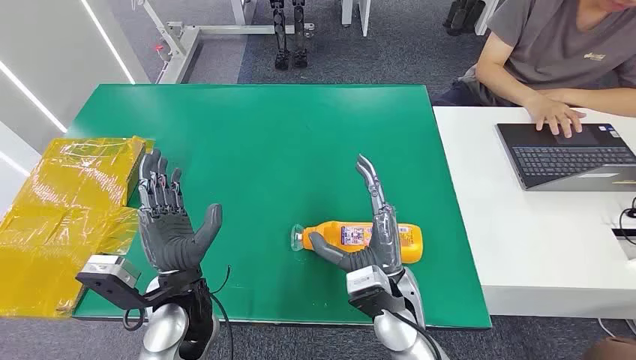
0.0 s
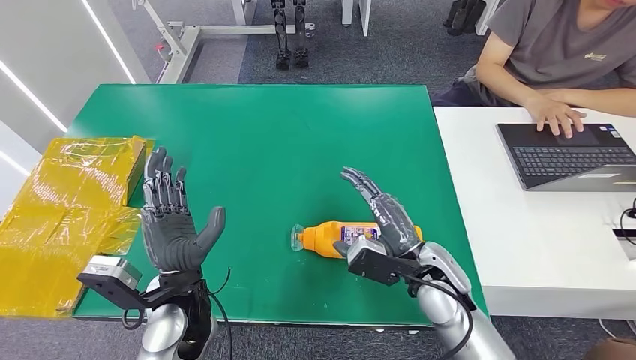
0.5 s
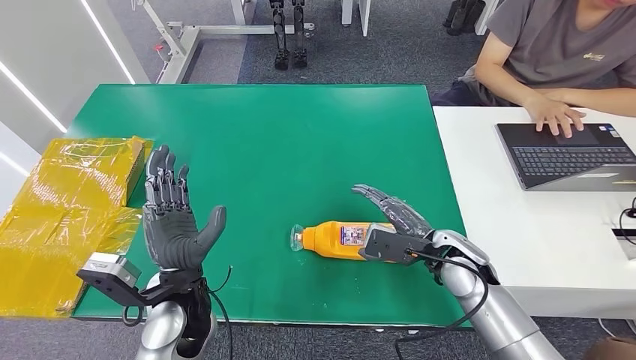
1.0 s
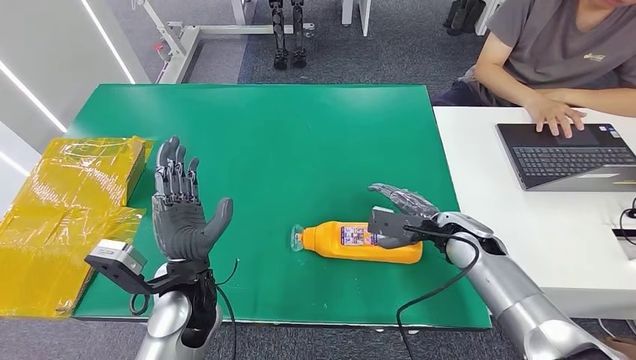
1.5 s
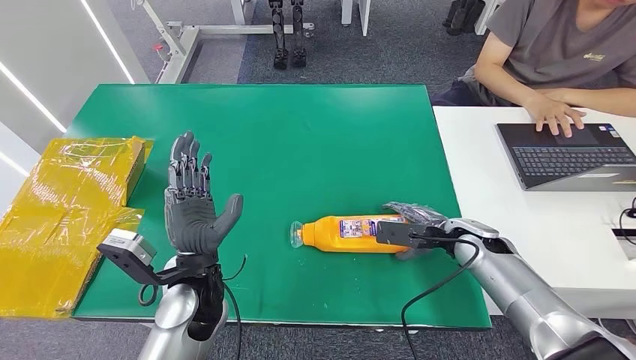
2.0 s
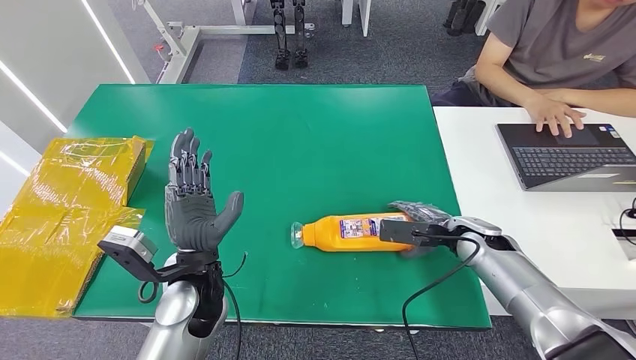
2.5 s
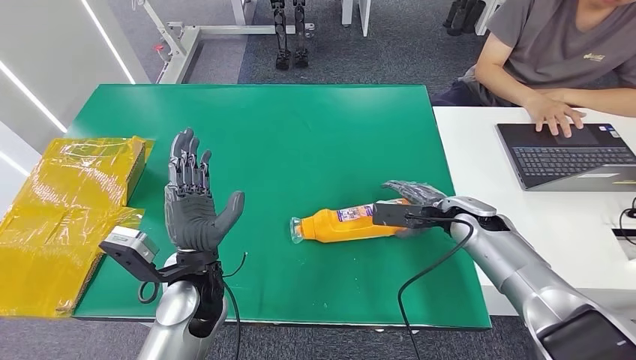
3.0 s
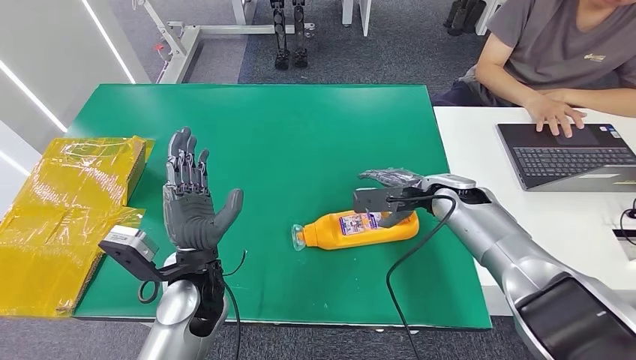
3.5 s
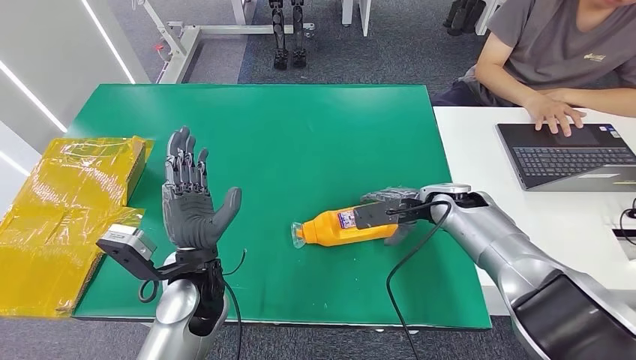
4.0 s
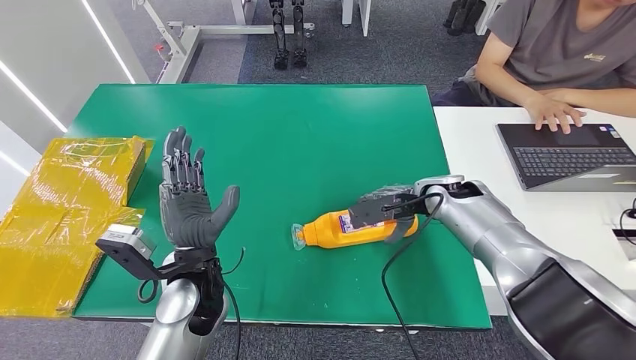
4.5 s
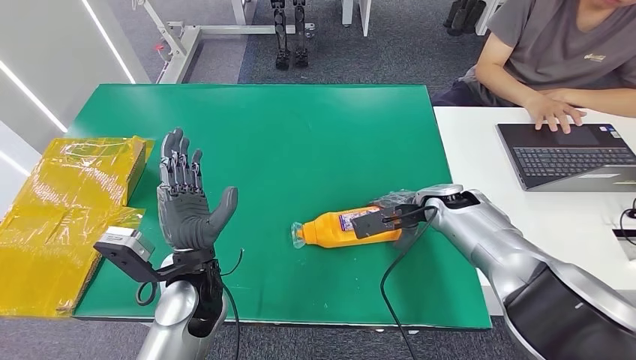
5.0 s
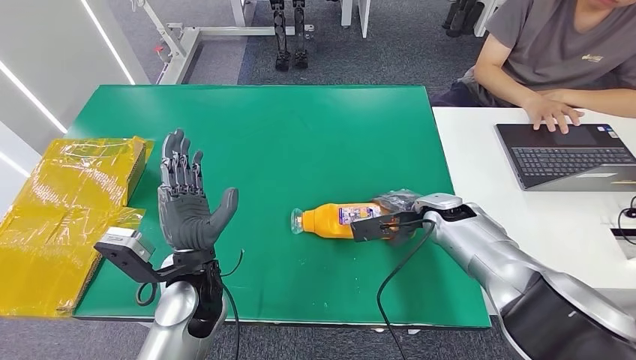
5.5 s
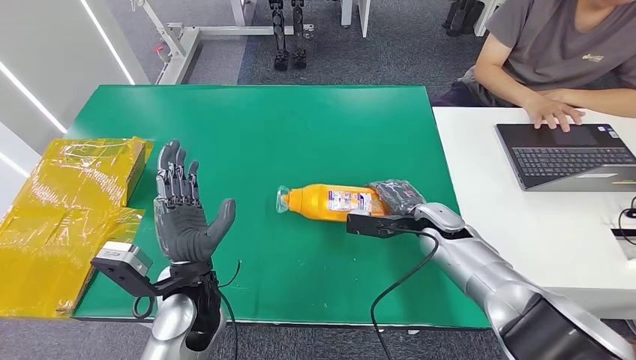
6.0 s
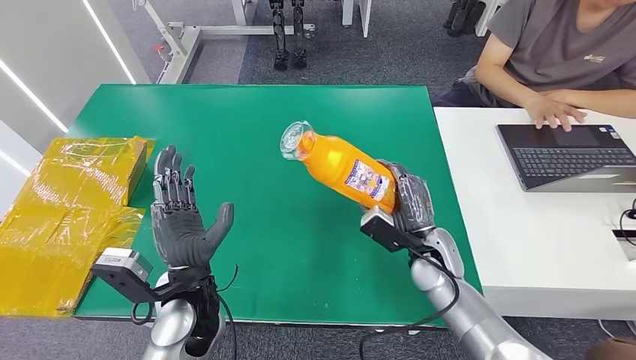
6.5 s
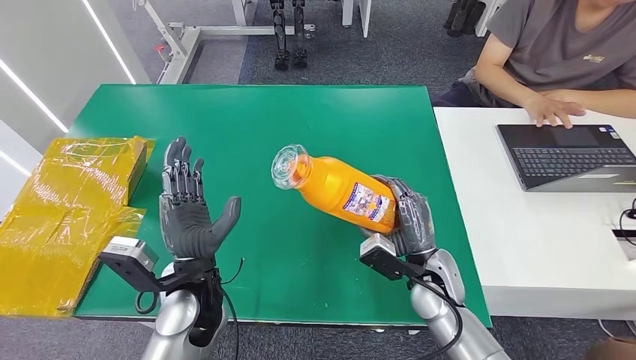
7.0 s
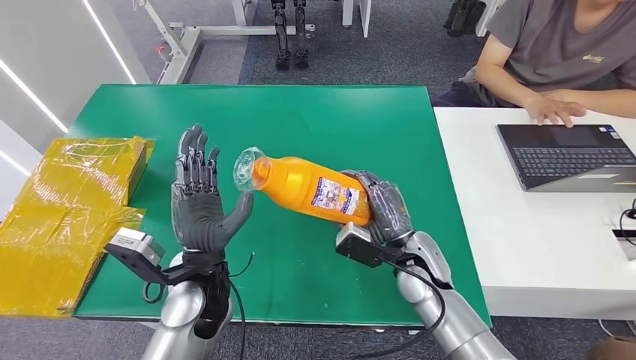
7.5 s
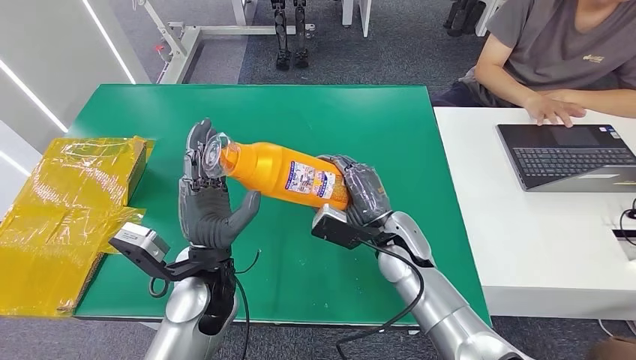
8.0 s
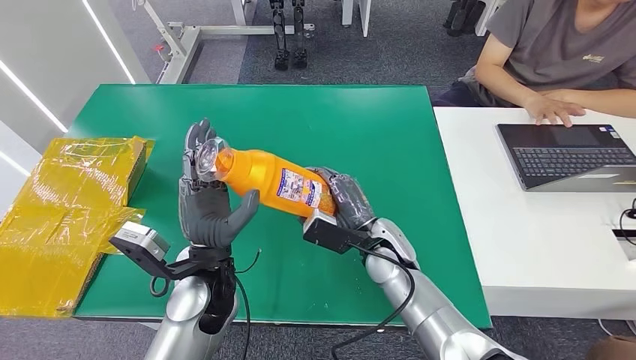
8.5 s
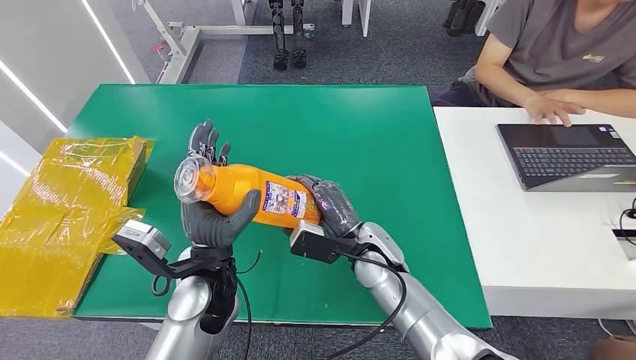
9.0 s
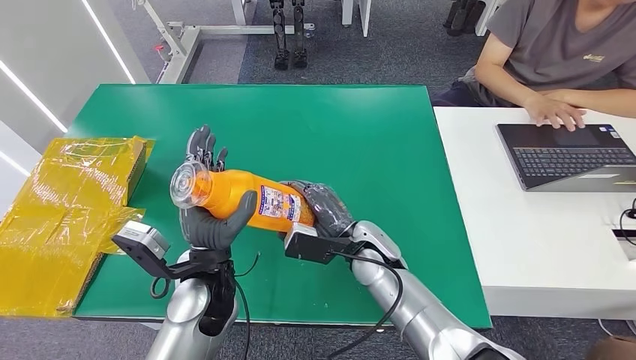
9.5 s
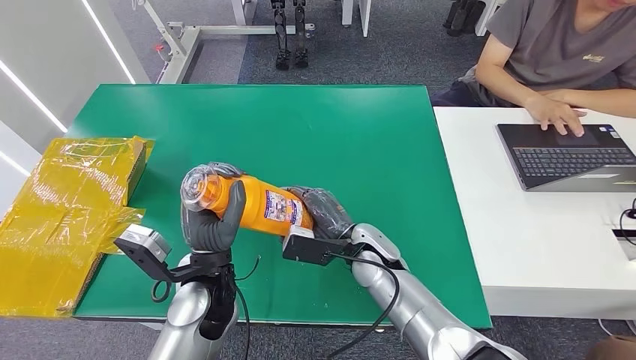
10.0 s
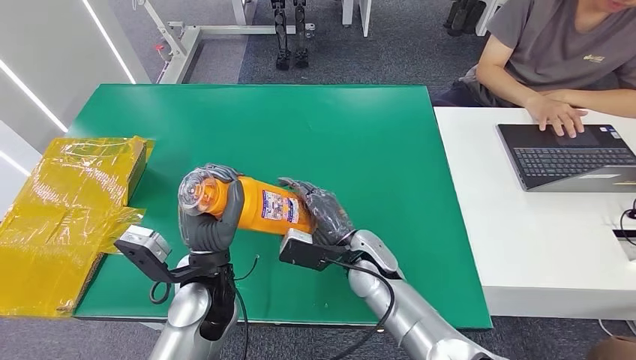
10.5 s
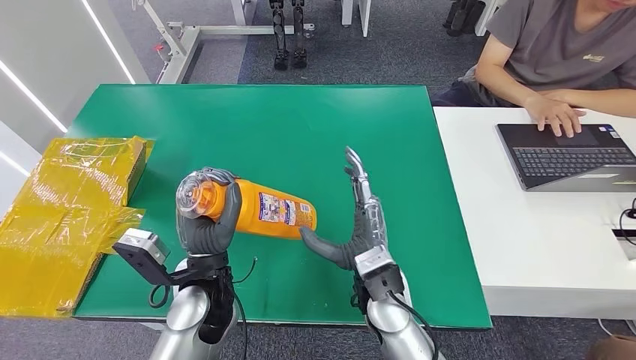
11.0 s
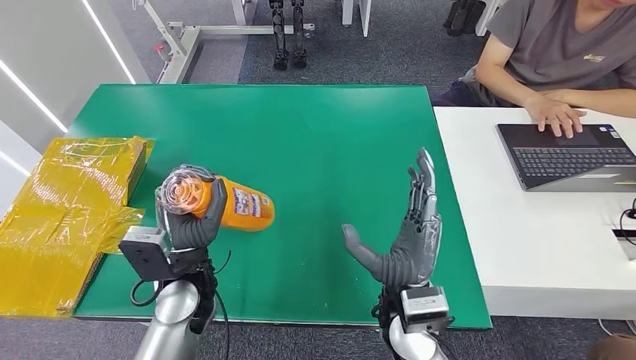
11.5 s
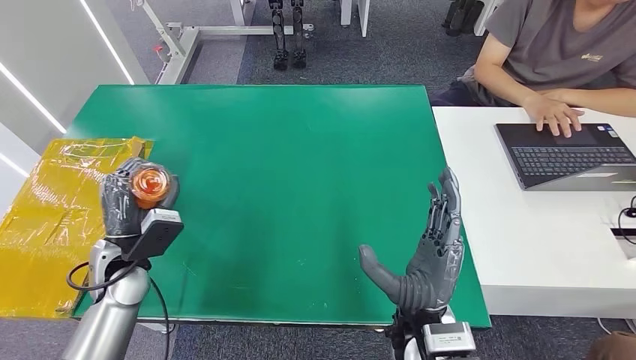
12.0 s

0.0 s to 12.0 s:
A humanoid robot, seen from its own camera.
2.0 to 4.0 s: The right hand heads forward and upward, covering roughly 10 cm.
4.0 to 6.0 s: The right hand is displaced downward by some 5 cm.
8.0 to 10.0 s: The right hand ends up approximately 5 cm from where it was.
10.0 to 12.0 s: The left hand moves to the left, some 15 cm, while the right hand moves backward, approximately 15 cm.

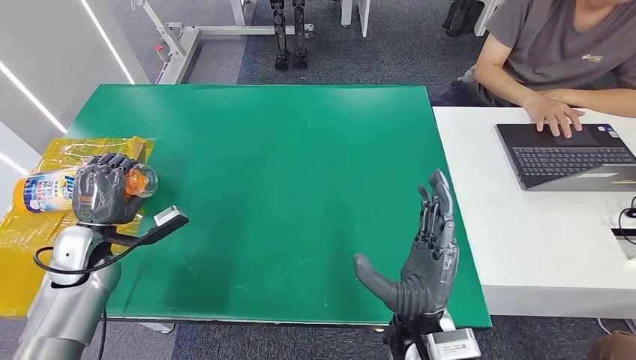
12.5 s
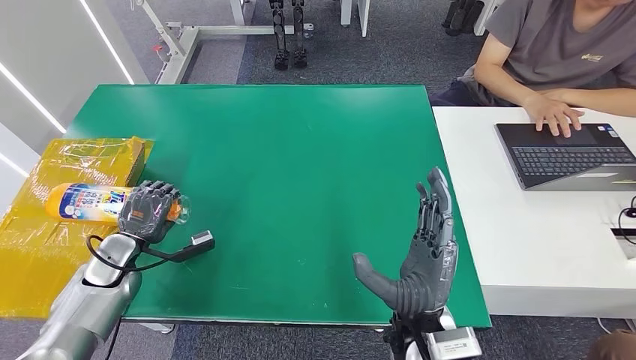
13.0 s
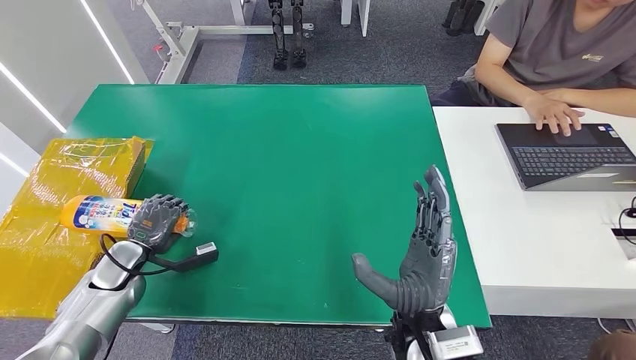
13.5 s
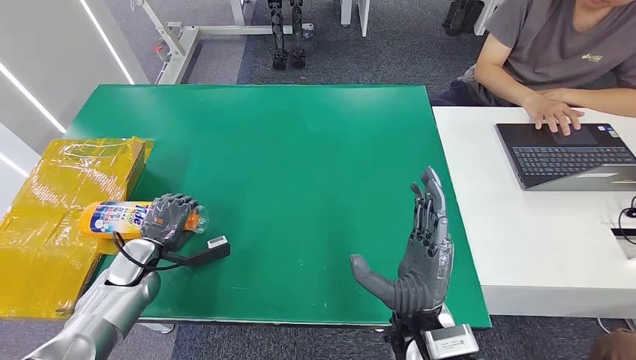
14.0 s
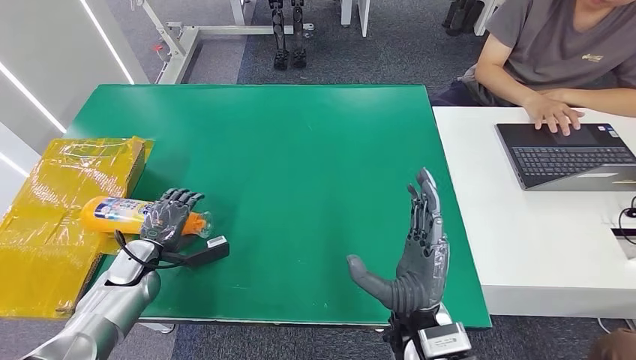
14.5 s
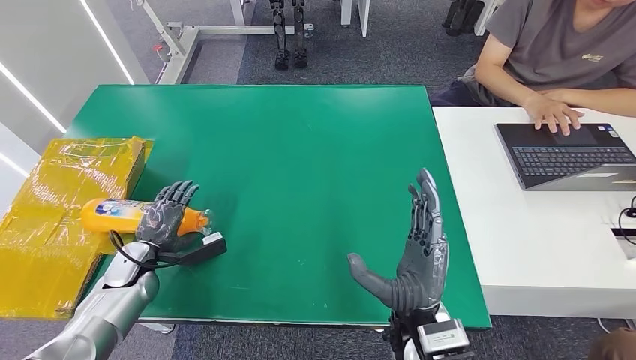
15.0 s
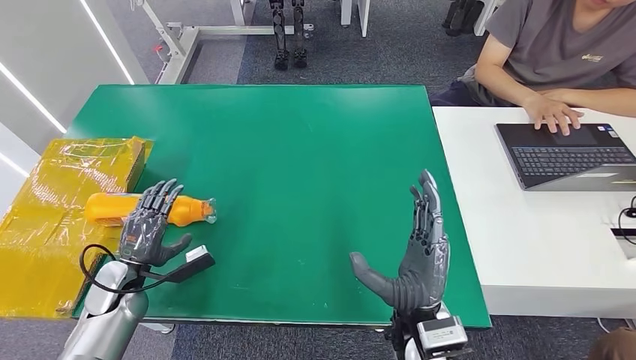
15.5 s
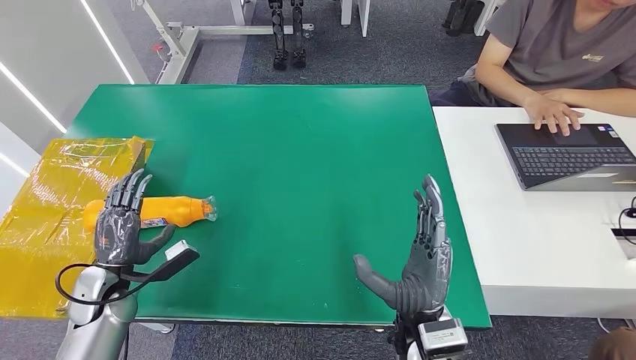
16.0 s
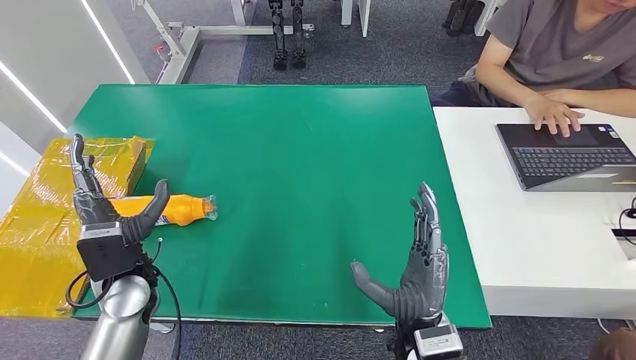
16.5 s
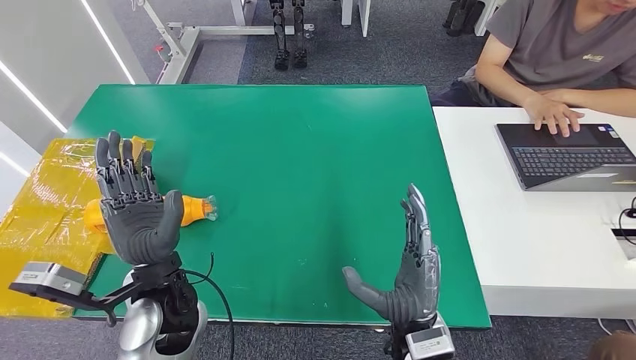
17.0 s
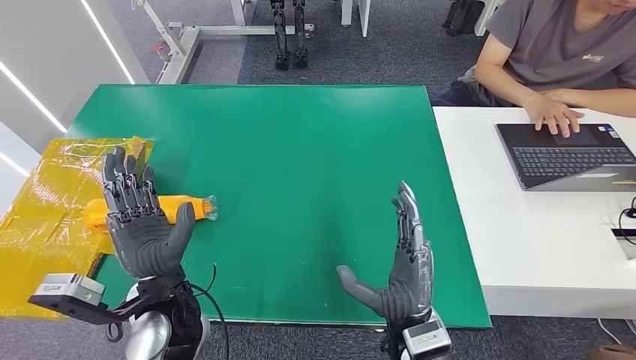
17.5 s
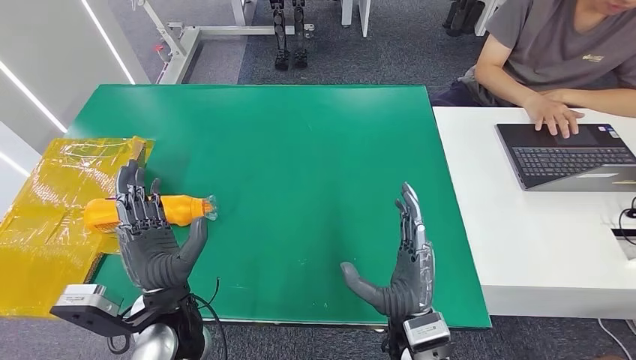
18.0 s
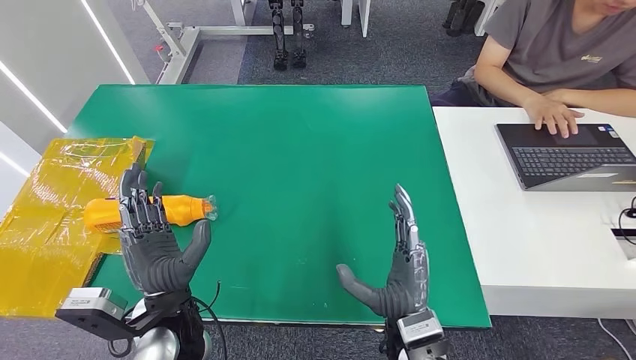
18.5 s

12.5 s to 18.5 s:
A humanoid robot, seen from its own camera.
Step, 12.5 to 18.5 s: Turn the bottle to the front side.
12.5 to 14.5 s: The left hand is displaced downward by about 10 cm.
14.5 to 16.5 s: The left hand moves upward, to the right and backward, about 15 cm.
16.5 to 18.5 s: The left hand goes roughly 15 cm to the right and backward.

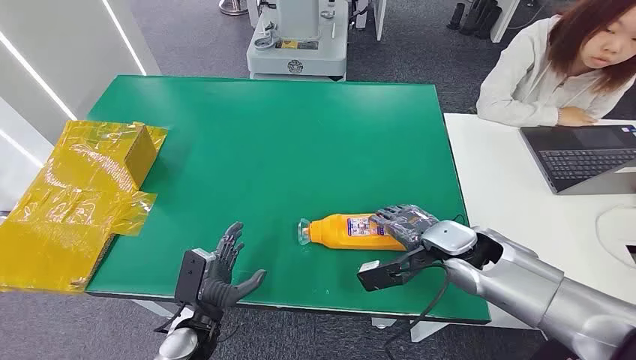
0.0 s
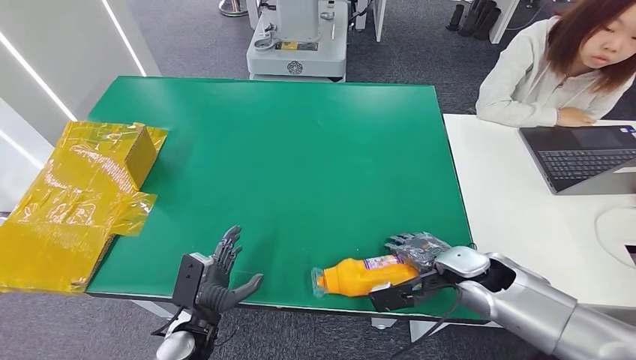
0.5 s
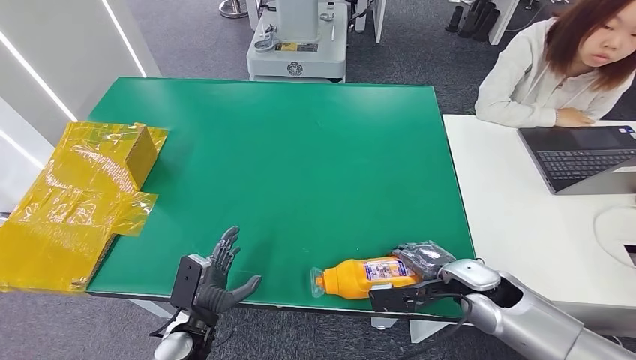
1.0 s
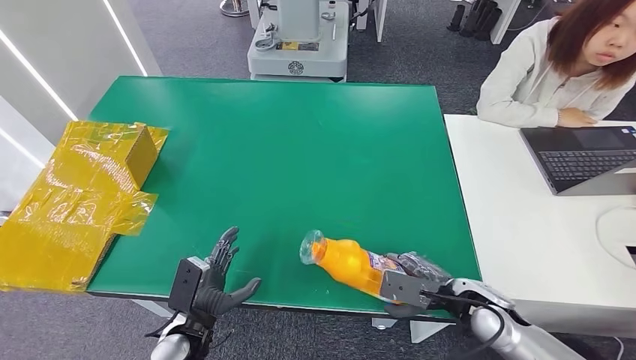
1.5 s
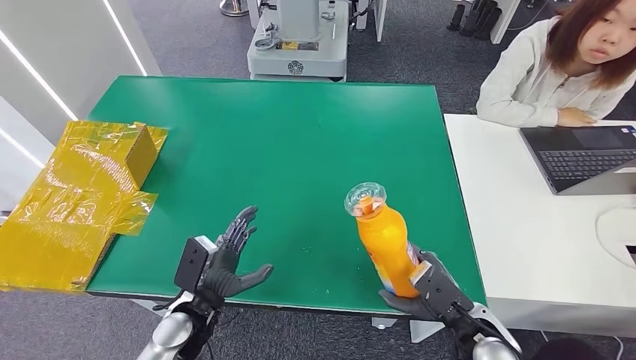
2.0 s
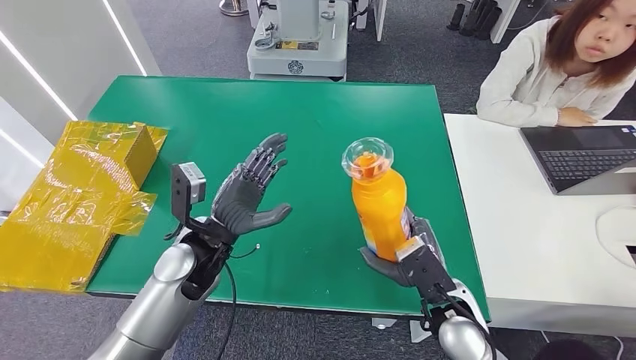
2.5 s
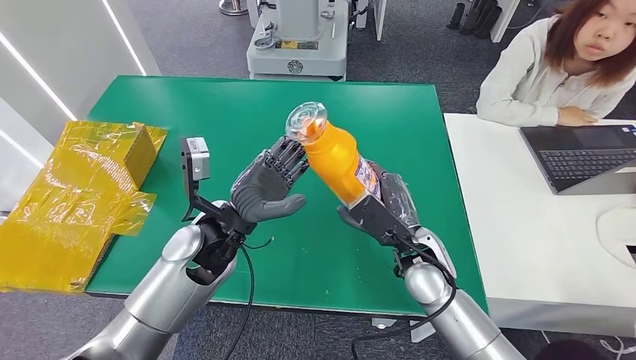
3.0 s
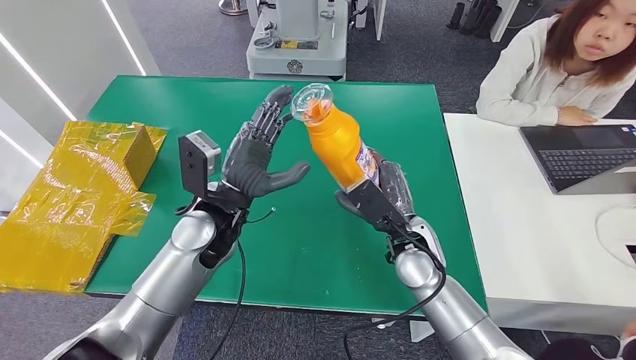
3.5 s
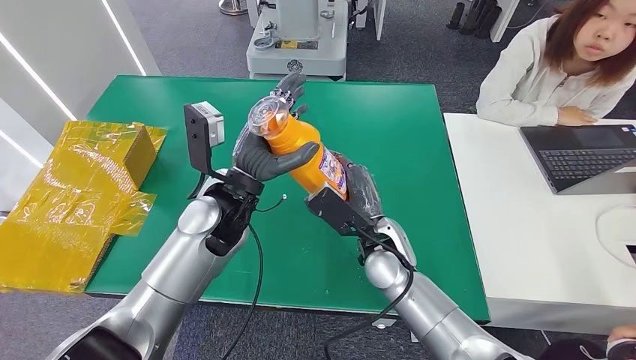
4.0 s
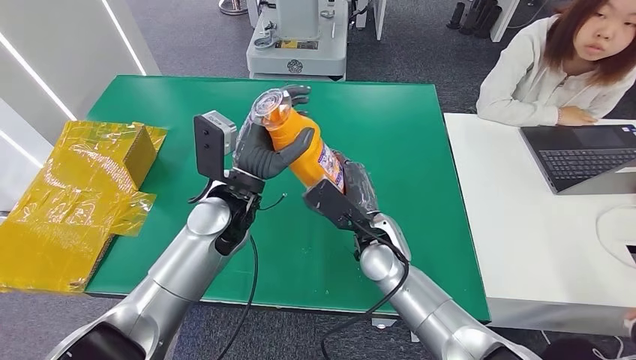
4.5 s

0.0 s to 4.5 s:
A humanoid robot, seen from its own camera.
Step, 0.0 to 2.5 s: Pick up the bottle from the table.
2.0 to 4.5 s: The right hand heads to the left and forward, covering about 20 cm. The left hand shifts roughly 25 cm upward, forward and to the right.
